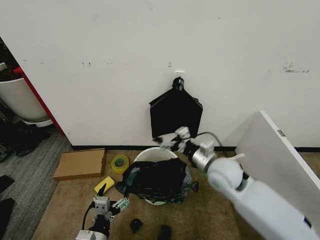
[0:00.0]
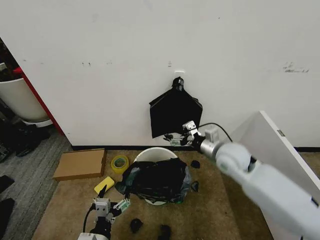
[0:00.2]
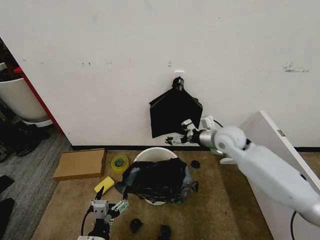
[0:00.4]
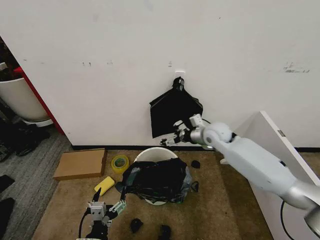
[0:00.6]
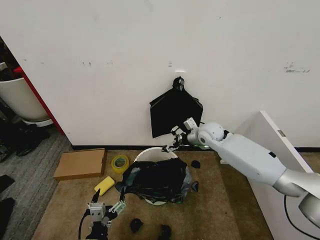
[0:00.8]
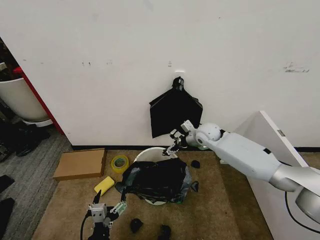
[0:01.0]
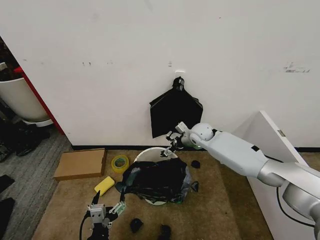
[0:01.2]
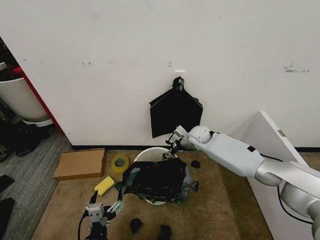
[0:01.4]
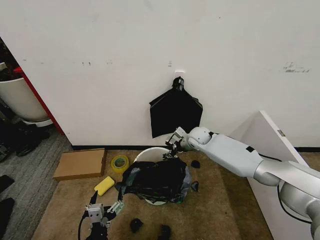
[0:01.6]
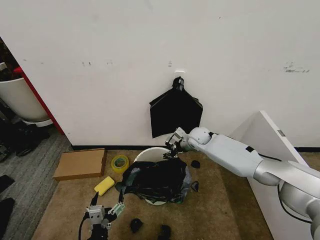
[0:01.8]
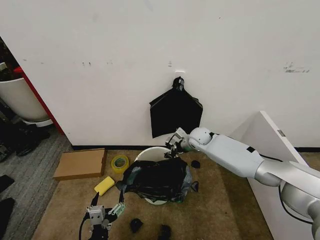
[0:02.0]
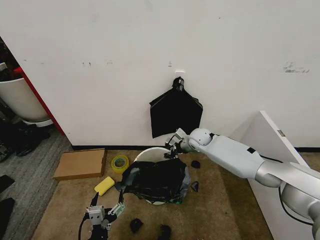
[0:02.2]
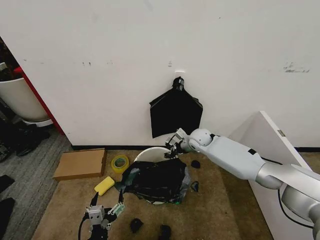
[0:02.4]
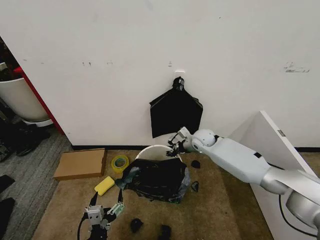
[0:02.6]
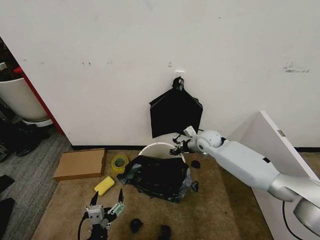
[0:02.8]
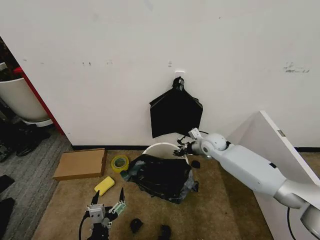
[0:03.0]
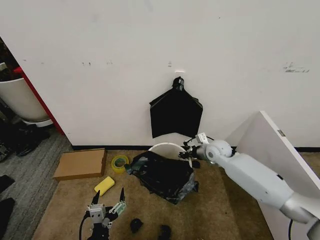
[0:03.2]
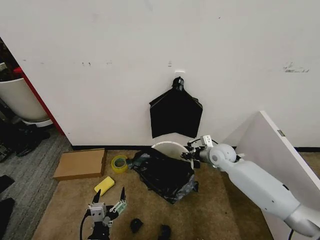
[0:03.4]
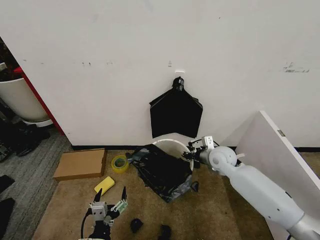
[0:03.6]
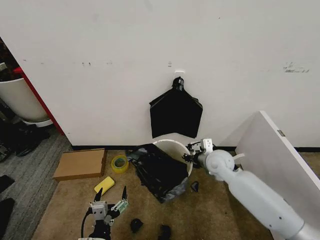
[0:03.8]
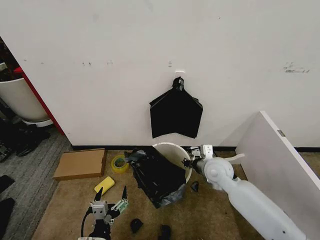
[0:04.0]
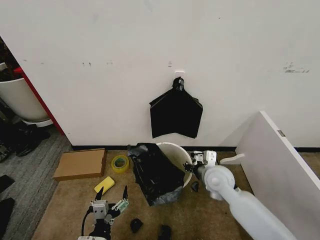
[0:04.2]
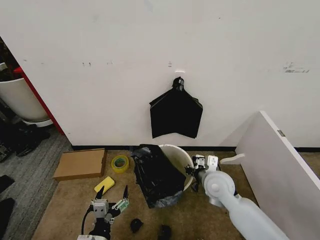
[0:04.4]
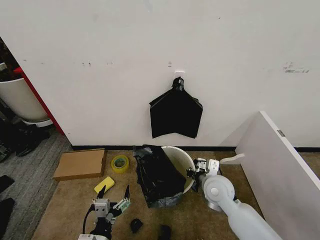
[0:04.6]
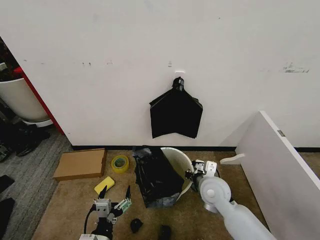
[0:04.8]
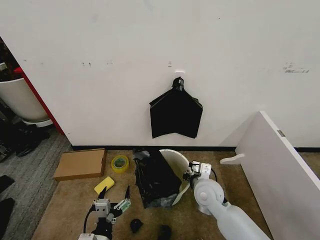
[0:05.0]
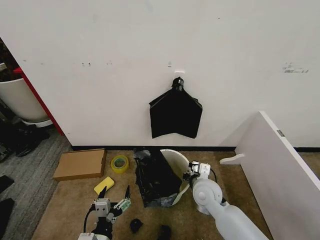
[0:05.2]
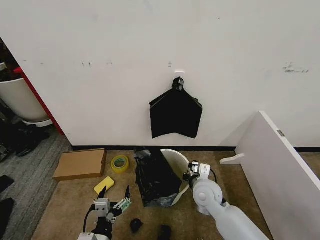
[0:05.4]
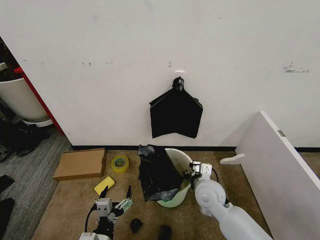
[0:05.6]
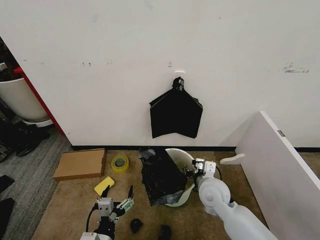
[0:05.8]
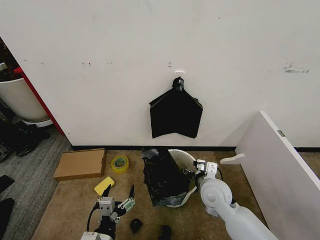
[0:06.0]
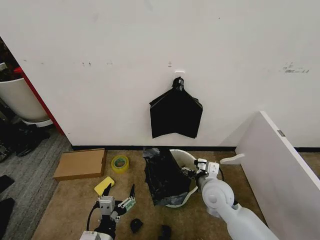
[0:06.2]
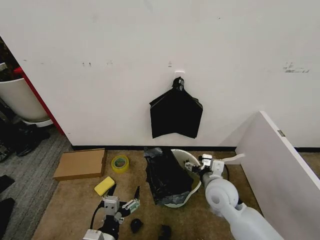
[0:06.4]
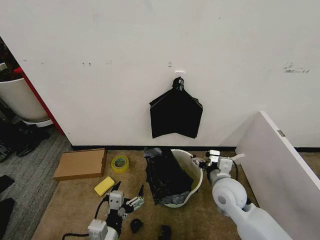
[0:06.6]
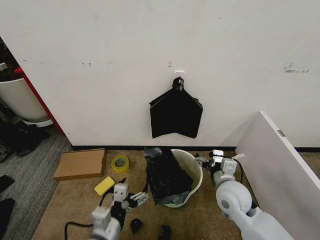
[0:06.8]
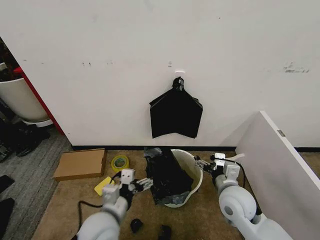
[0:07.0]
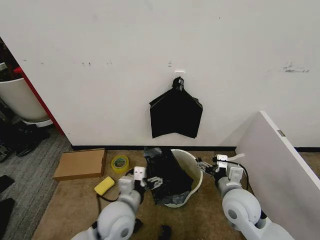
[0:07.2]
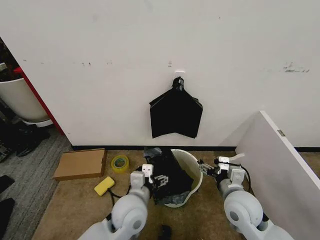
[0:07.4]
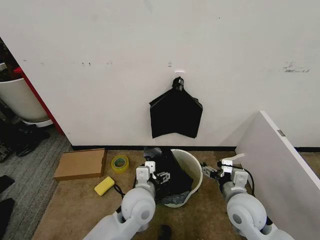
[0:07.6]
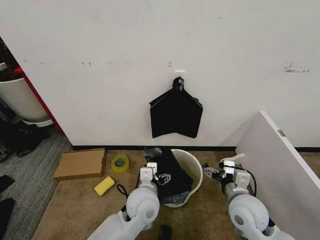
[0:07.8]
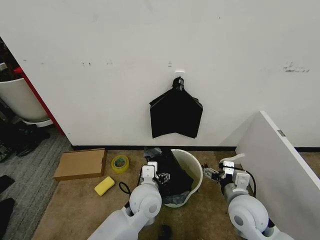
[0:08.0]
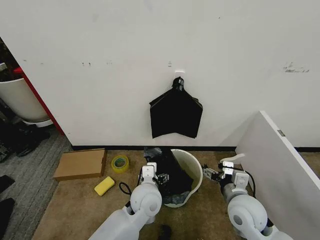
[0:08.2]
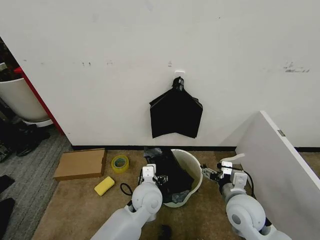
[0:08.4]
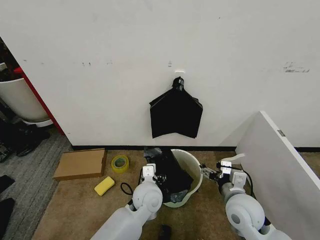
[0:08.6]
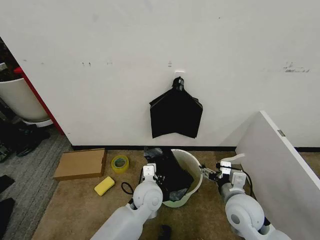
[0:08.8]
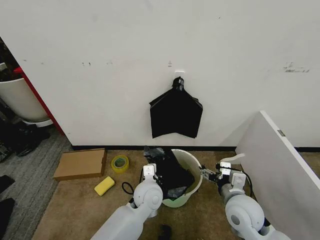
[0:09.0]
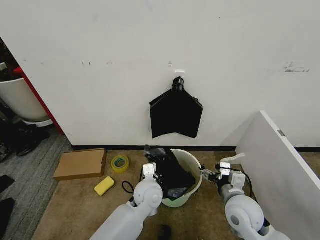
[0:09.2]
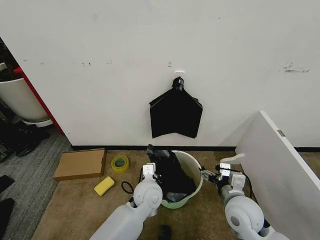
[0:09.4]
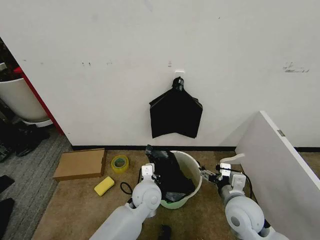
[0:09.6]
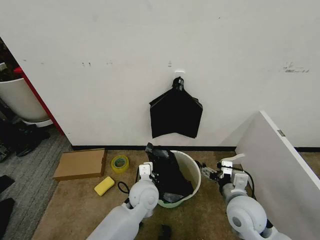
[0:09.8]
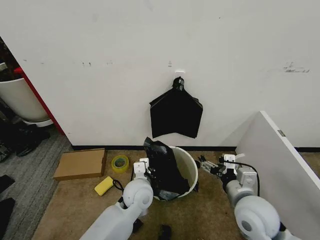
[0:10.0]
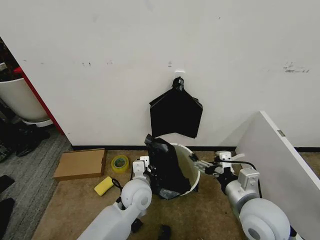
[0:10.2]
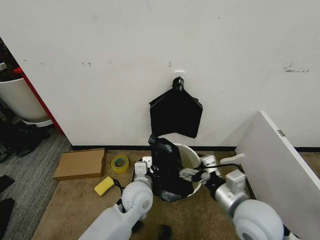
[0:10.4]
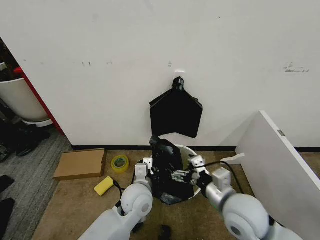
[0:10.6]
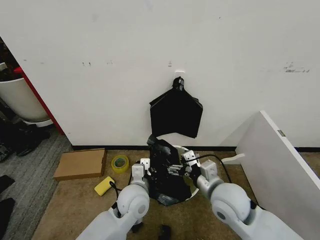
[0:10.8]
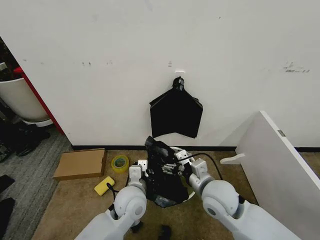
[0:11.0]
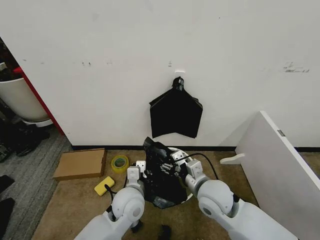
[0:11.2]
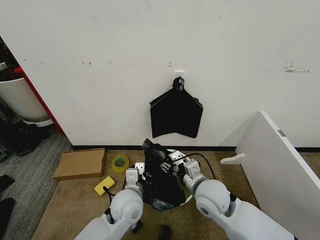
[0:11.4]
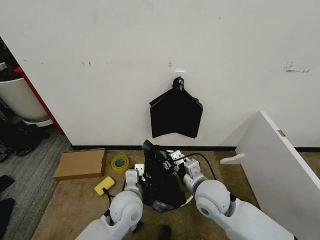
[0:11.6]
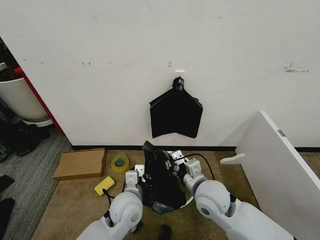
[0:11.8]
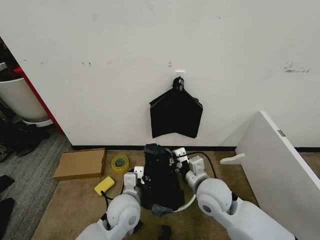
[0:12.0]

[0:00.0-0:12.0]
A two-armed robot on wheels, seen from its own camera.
Task of the whole recording: Place the garbage bag over the trash bin.
0:00.0 to 0:01.6: The right gripper heads forward, covering approximately 20 cm, and closes up.
0:01.6 to 0:03.0: The right gripper changes place by some 5 cm, and closes its fingers.
0:03.0 to 0:04.4: The right gripper is displaced backward by some 20 cm.
0:04.4 to 0:06.0: The right gripper opens up.
0:06.0 to 0:07.6: The left gripper travels forward, to the right and upward by approximately 20 cm, while the right gripper heads to the right and backward, covering approximately 10 cm.
0:07.6 to 0:09.0: The left gripper ends up about 5 cm from where it was, and closes up.
0:09.0 to 0:10.4: The right gripper shifts about 5 cm upward. Meanwhile the left gripper closes up.
0:10.4 to 0:12.0: The right gripper travels forward and to the left by some 10 cm, and closes its fingers, while the left gripper shifts by approximately 5 cm.

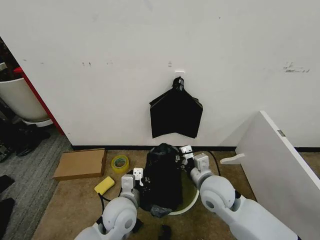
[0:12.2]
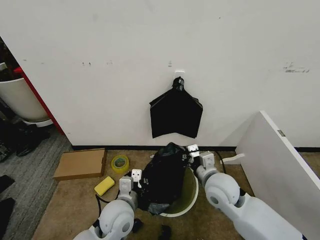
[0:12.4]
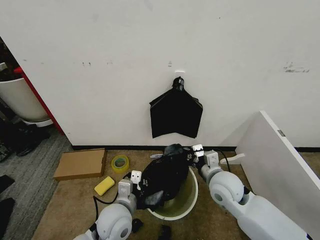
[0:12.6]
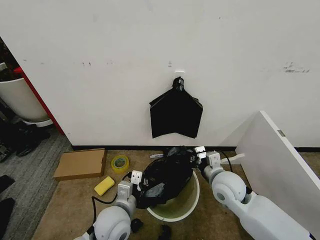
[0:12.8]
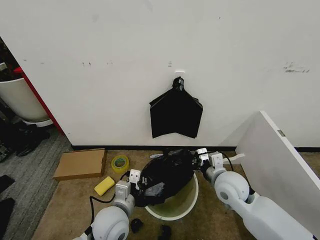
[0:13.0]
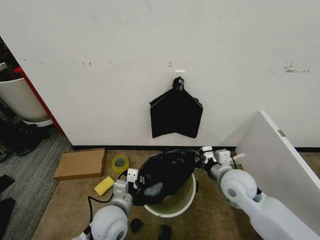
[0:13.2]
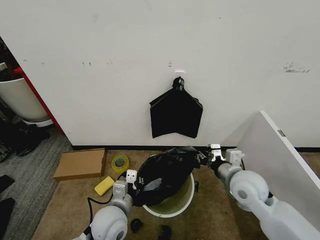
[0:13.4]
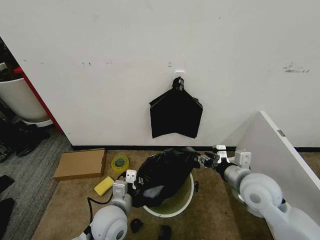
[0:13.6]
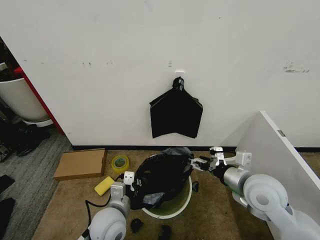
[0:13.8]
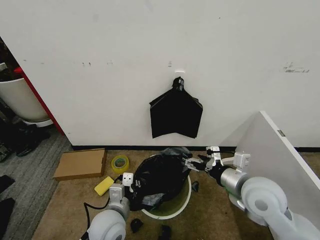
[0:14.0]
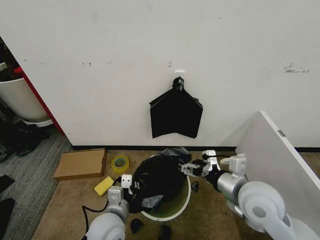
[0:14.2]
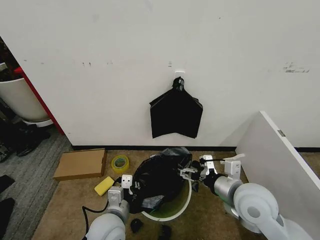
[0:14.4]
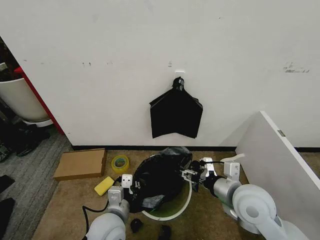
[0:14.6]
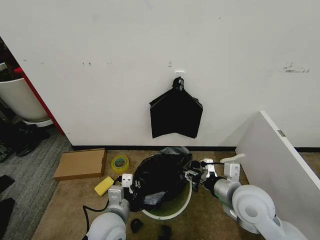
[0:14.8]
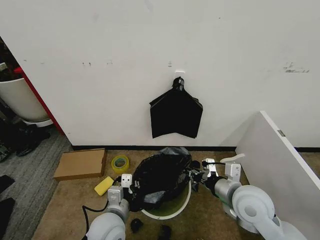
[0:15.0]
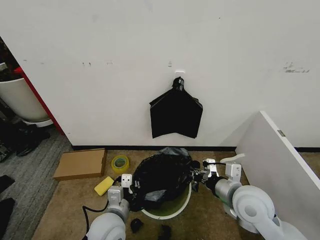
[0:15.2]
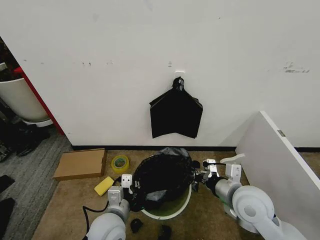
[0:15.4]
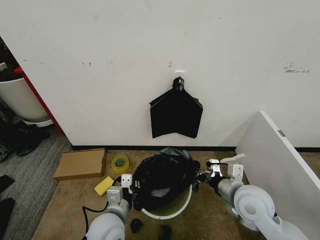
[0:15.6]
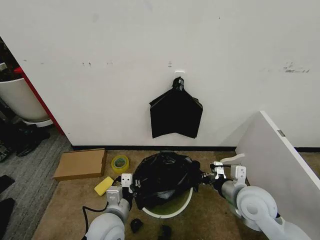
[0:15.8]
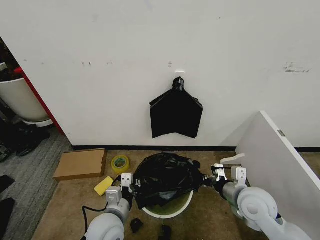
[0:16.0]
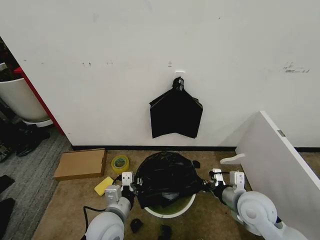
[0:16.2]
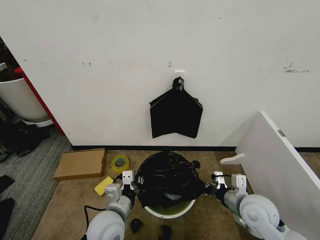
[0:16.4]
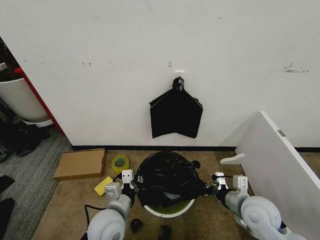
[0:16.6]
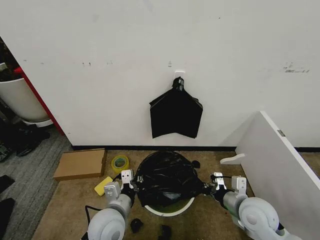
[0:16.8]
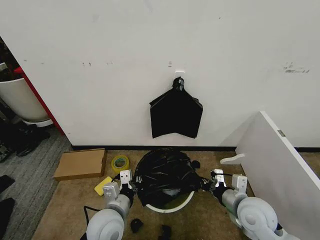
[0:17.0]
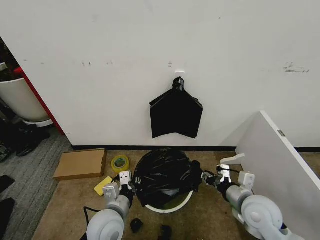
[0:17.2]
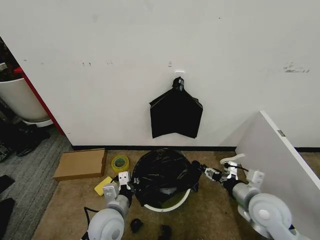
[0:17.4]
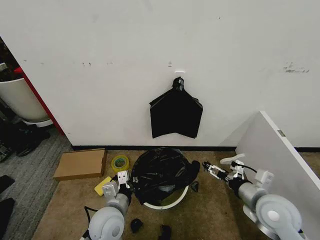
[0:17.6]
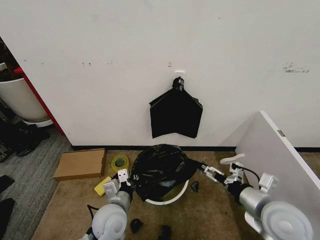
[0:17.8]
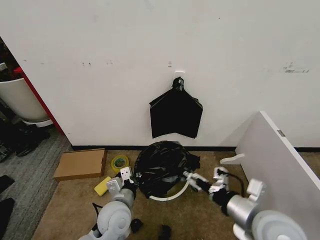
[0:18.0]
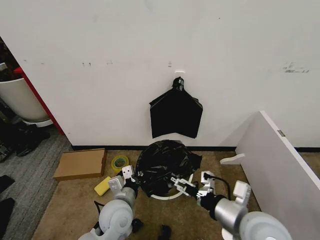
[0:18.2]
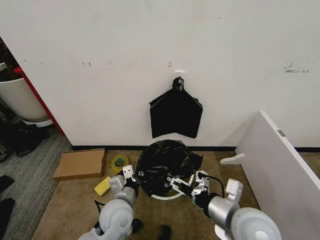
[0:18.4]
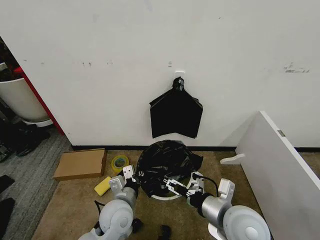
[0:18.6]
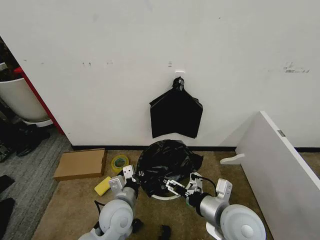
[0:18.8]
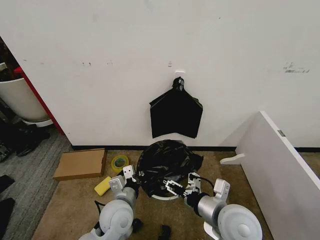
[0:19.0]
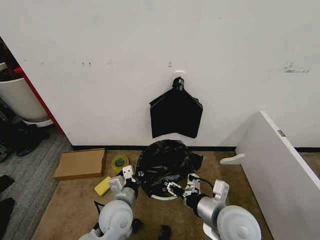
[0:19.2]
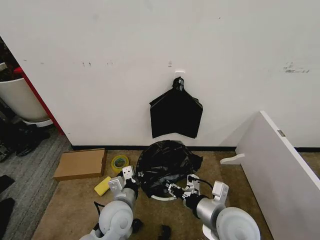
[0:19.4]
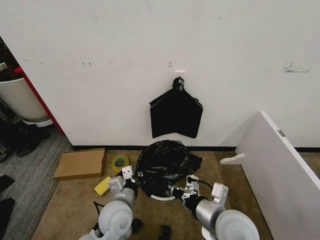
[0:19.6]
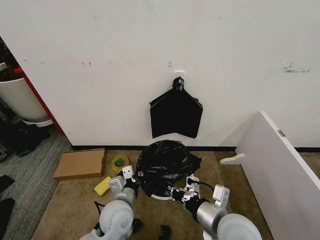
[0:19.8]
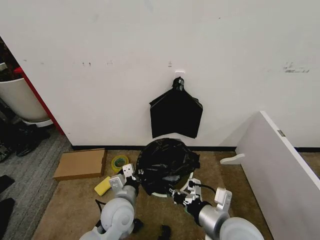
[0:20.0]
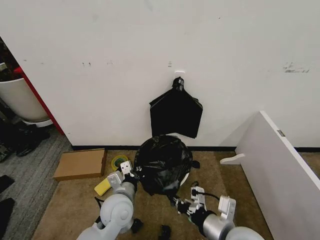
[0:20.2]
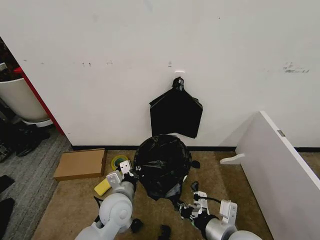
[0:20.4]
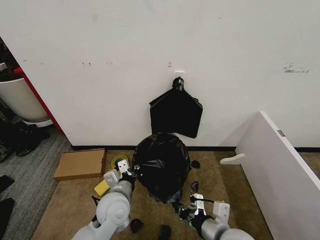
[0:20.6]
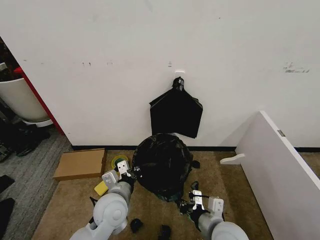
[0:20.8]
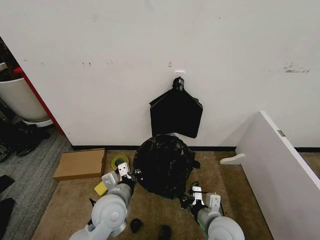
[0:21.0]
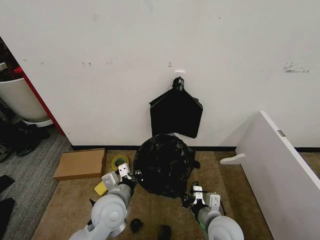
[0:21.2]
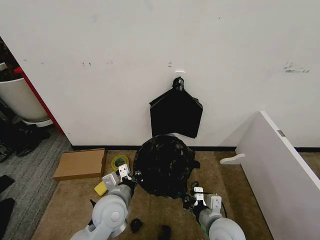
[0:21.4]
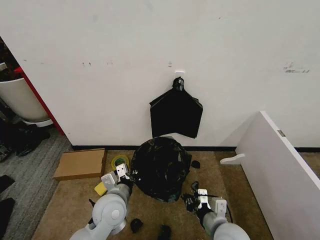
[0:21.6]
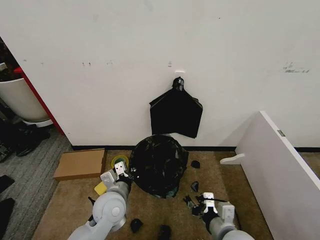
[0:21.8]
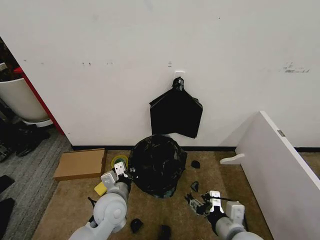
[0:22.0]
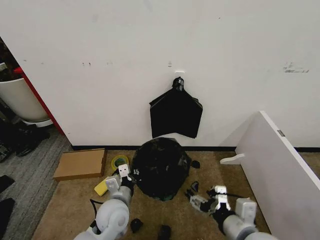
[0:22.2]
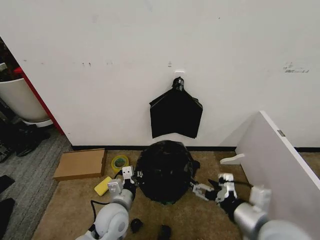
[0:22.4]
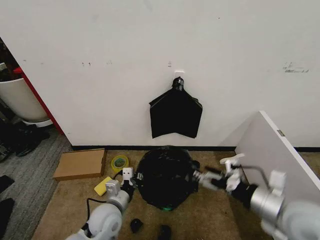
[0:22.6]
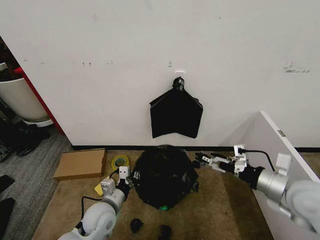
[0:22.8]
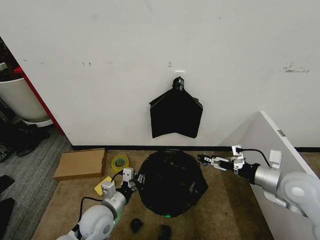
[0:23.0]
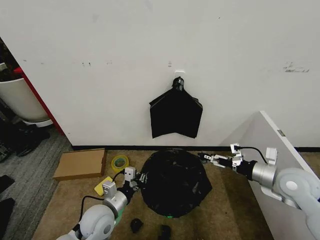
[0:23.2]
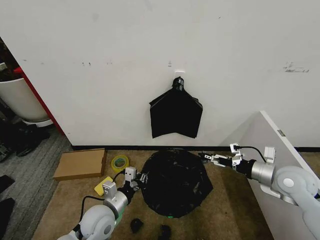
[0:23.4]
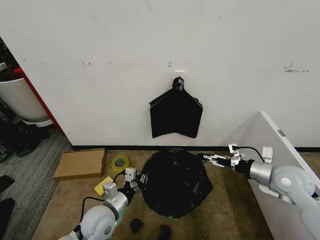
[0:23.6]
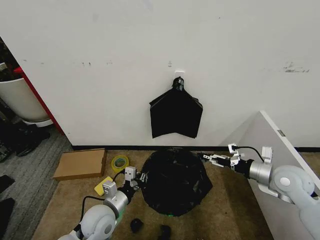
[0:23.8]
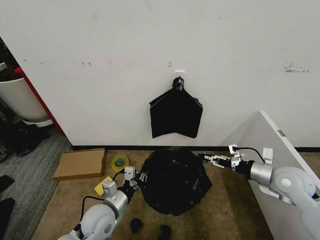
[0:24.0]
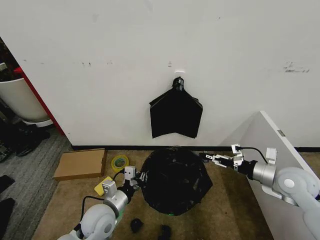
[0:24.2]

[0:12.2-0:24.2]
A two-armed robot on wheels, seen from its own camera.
Task of the whole recording: Place the garbage bag over the trash bin.
0:12.2 to 0:13.8: The right gripper travels to the right and upward by some 10 cm, and opens its fingers.
0:13.8 to 0:15.2: The right gripper closes its fingers.
0:15.2 to 0:16.6: The right gripper travels downward by approximately 5 cm.
0:16.6 to 0:18.2: The right gripper travels upward, backward and to the left by about 10 cm, and opens its fingers.
0:18.2 to 0:19.8: The right gripper ends up roughly 5 cm from where it was, and closes up.
0:19.8 to 0:21.2: The right gripper moves downward, about 10 cm.
0:21.2 to 0:22.6: The right gripper is displaced upward and to the right by about 20 cm, and opens up. Meanwhile the left gripper moves downward, approximately 5 cm.
0:22.6 to 0:24.2: The right gripper travels forward, to the right and downward by approximately 15 cm.
